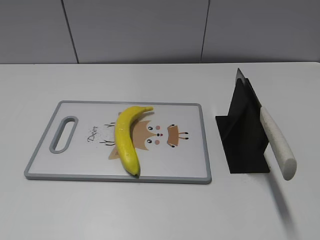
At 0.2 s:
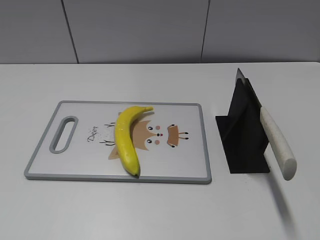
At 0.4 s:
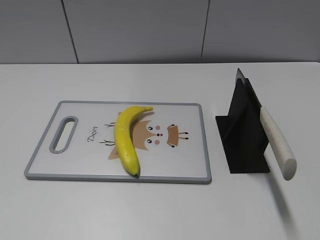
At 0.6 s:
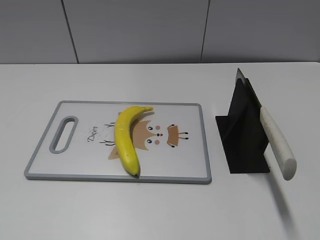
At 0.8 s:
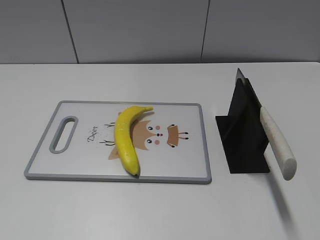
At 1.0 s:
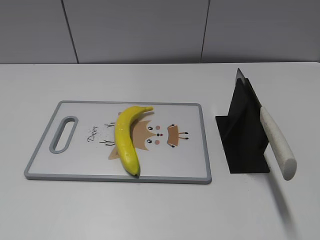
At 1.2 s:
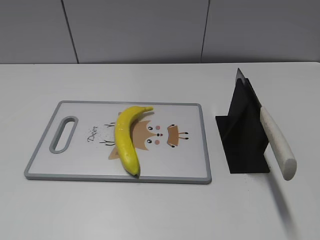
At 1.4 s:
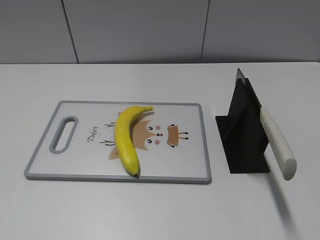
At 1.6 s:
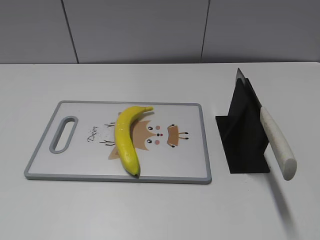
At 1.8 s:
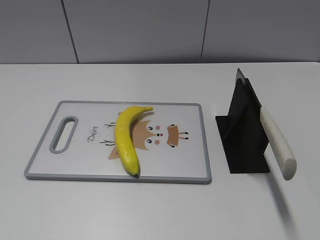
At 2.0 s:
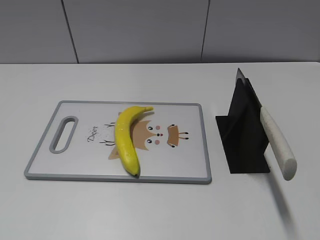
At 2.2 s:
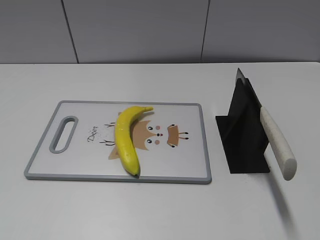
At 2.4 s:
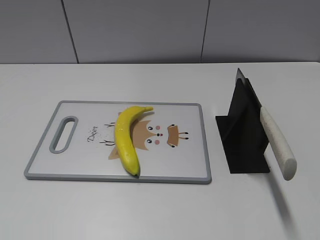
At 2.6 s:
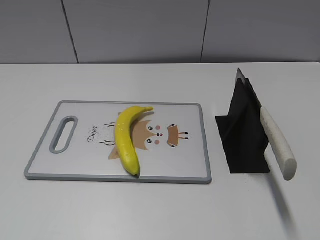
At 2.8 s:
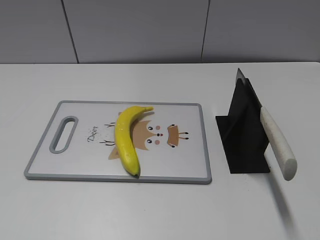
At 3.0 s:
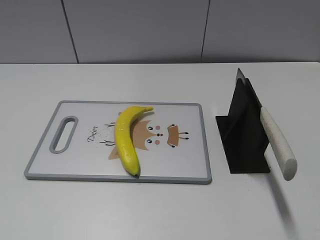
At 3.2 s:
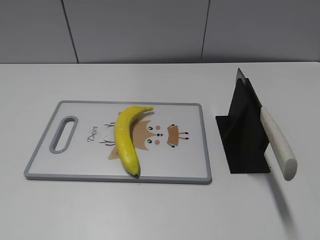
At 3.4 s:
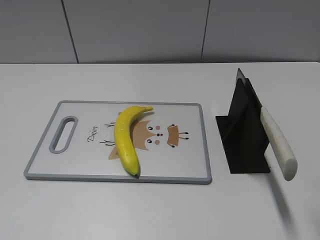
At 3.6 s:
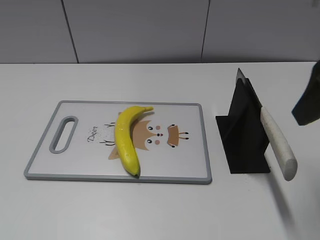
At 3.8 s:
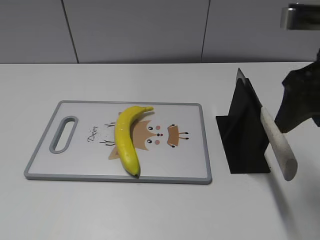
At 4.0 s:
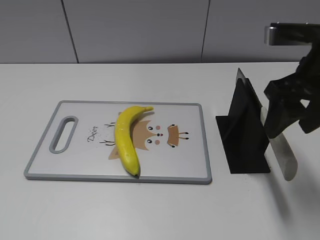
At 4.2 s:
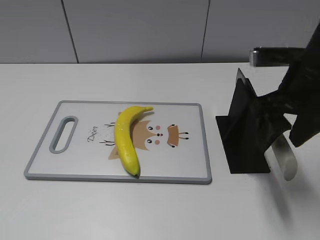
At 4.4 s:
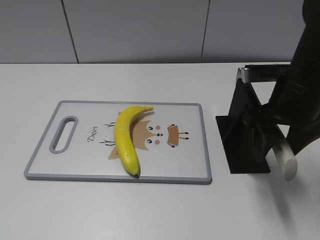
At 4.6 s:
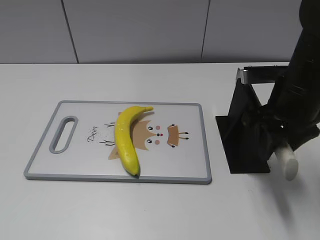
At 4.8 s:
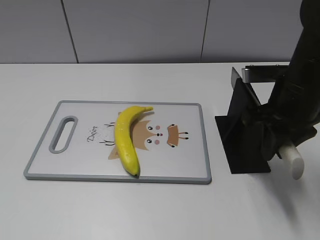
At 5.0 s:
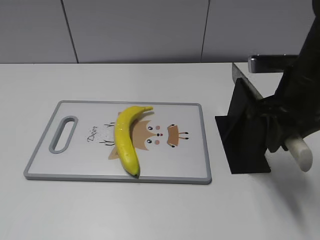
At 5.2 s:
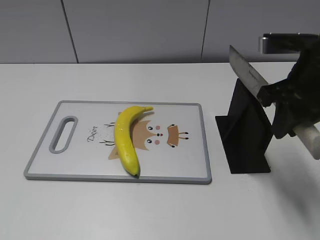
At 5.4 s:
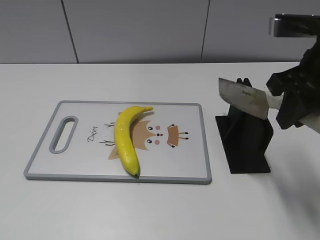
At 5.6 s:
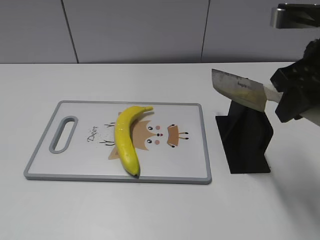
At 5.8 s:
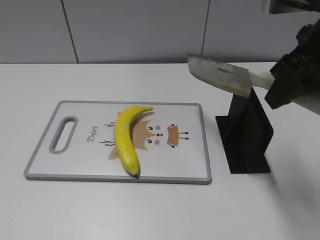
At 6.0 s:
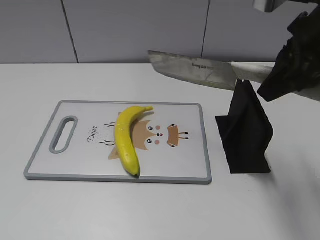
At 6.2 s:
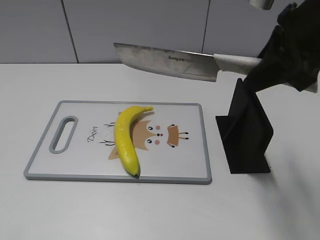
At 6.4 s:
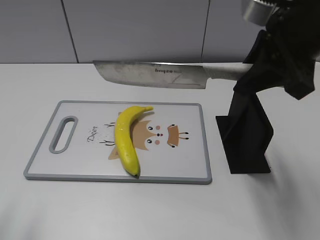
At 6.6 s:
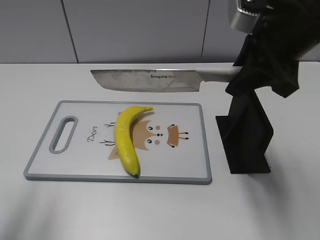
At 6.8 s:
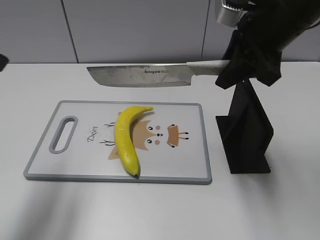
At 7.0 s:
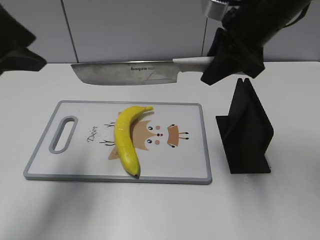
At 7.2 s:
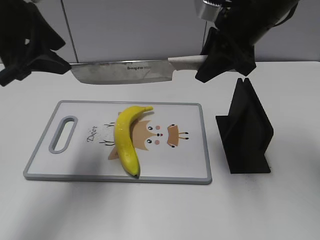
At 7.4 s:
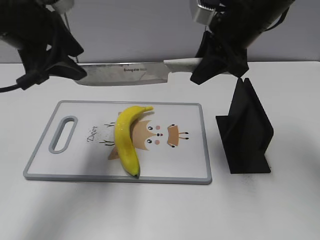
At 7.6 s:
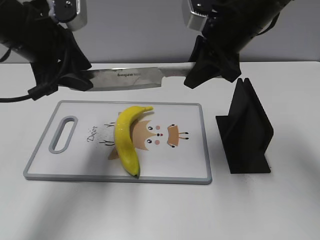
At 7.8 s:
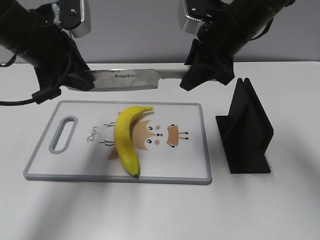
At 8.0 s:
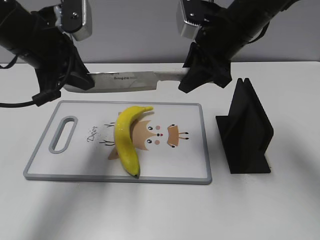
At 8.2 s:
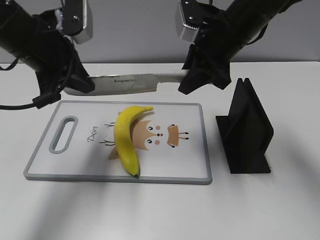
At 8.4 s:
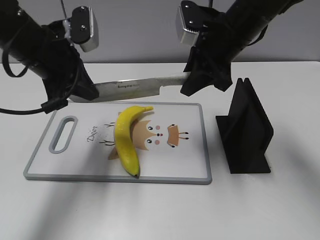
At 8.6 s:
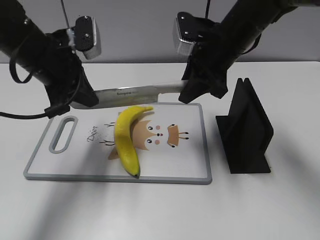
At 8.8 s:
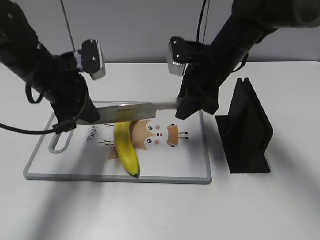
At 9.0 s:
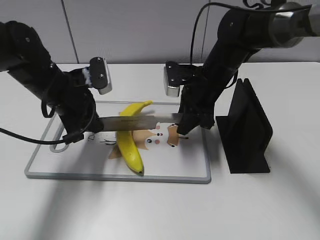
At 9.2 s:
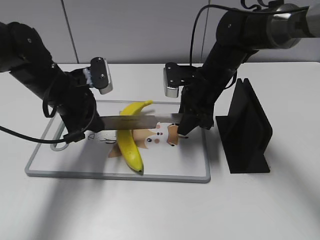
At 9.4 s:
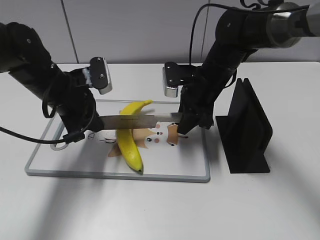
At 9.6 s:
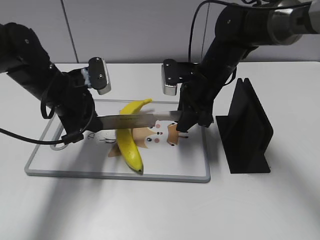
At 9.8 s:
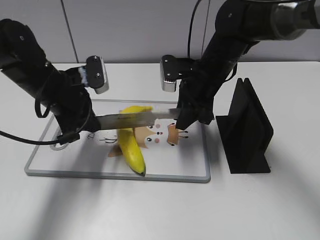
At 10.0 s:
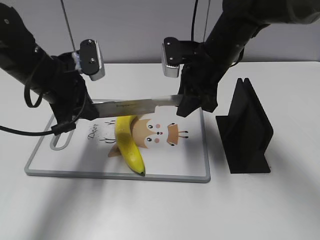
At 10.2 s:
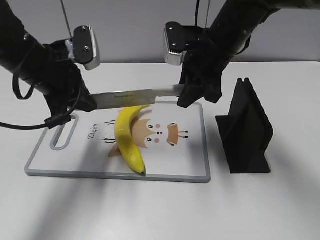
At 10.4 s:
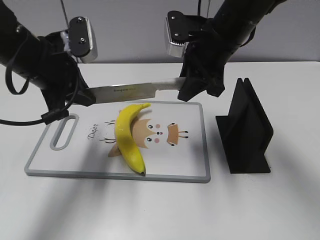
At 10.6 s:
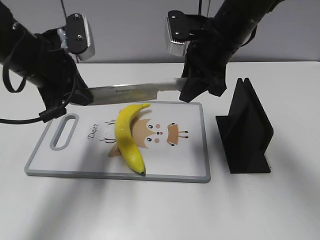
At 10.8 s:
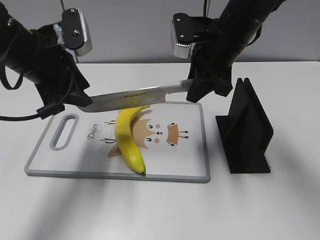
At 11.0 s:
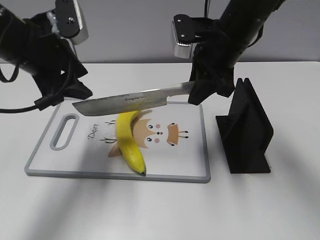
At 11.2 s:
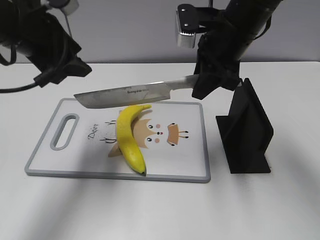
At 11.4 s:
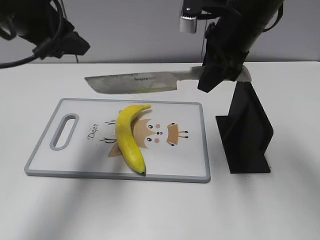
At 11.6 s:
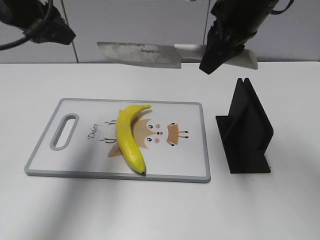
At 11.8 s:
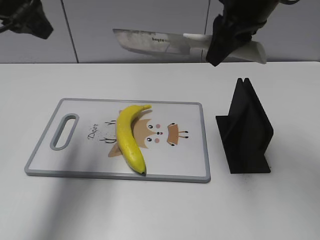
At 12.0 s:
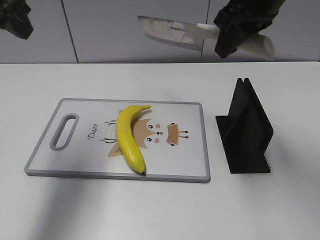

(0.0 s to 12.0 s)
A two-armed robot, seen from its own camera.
Task of the whole recording: cut plastic banana.
Step, 0.0 s - 5.8 s: Grab the knife handle with your right hand.
Step, 6.0 s - 9.8 s: Lift the knife with your right hand.
Step, 10.0 s - 11.4 s: Cut the banana with your right hand.
3.0 s - 4.4 s: The right gripper moves forward, downward and to the left, about 25 cm.
4.4 s - 6.0 s: The right gripper is displaced upward by roughly 10 cm, and closes.
6.0 s - 7.6 s: The right gripper moves forward, to the left and downward, some 15 cm. Meanwhile the left gripper goes about 35 cm forward and to the right.
7.6 s - 9.0 s: The two grippers go about 15 cm downward. The left gripper closes.
9.0 s - 10.4 s: The two grippers go about 10 cm upward.
10.4 s - 12.0 s: Both grippers move upward, approximately 10 cm. The left gripper opens up.

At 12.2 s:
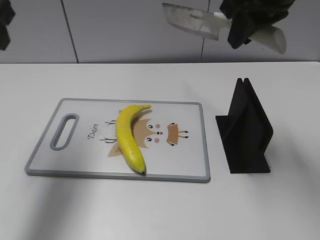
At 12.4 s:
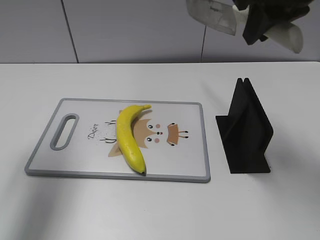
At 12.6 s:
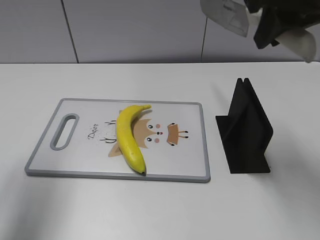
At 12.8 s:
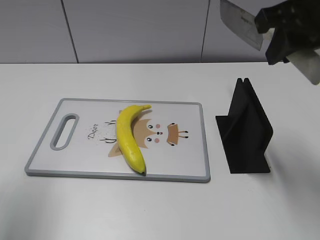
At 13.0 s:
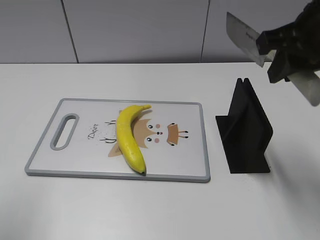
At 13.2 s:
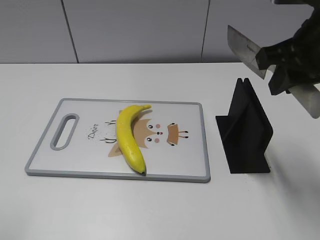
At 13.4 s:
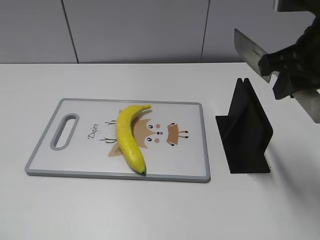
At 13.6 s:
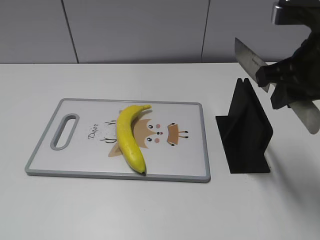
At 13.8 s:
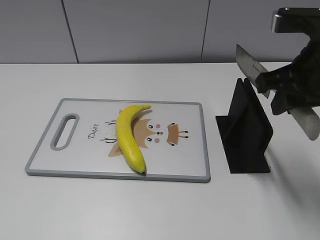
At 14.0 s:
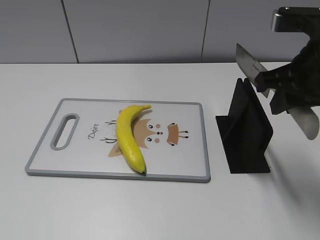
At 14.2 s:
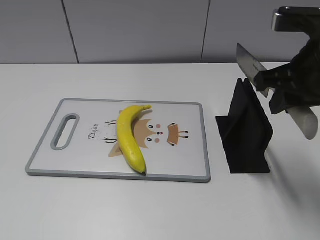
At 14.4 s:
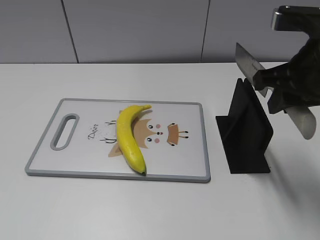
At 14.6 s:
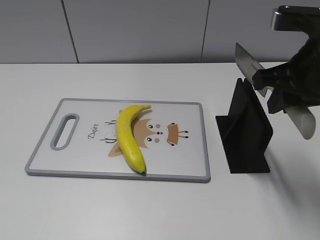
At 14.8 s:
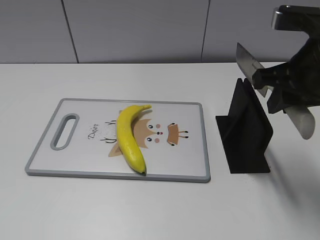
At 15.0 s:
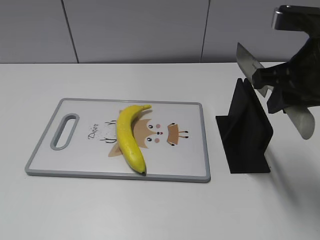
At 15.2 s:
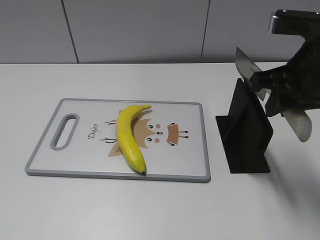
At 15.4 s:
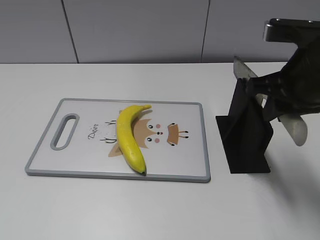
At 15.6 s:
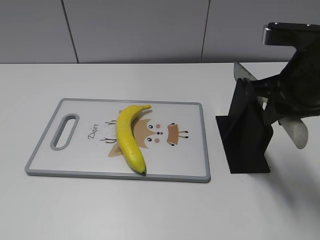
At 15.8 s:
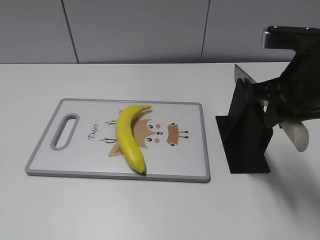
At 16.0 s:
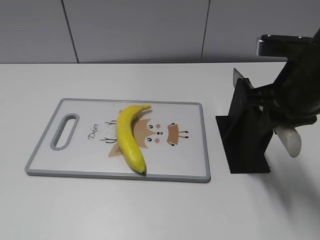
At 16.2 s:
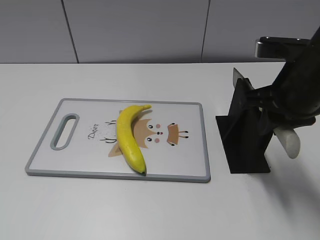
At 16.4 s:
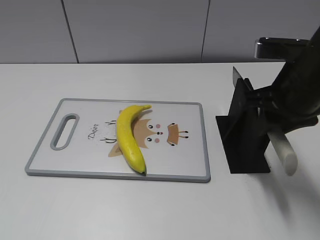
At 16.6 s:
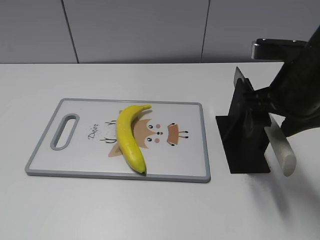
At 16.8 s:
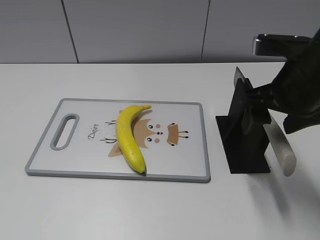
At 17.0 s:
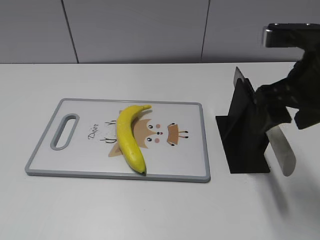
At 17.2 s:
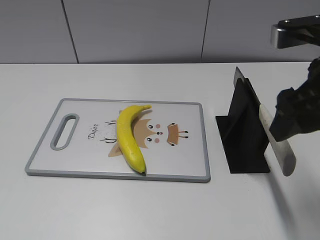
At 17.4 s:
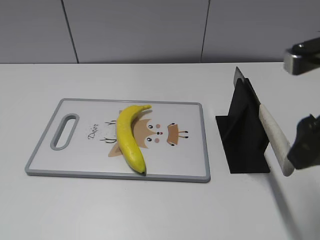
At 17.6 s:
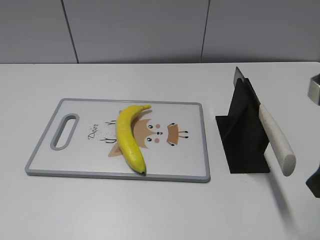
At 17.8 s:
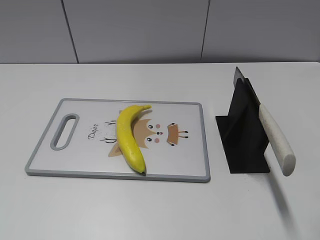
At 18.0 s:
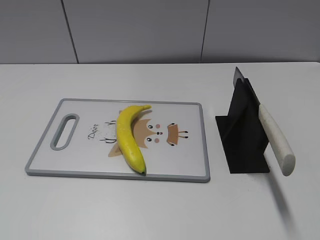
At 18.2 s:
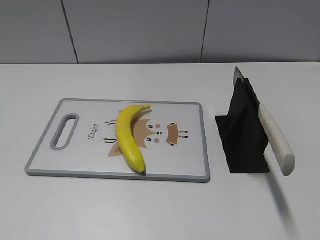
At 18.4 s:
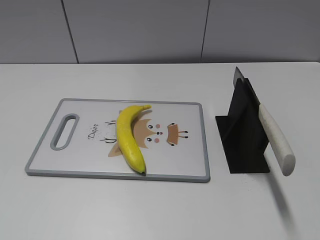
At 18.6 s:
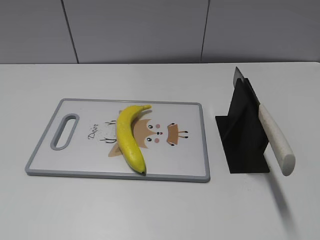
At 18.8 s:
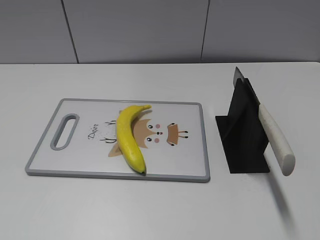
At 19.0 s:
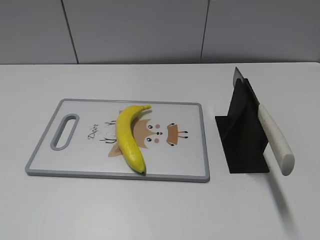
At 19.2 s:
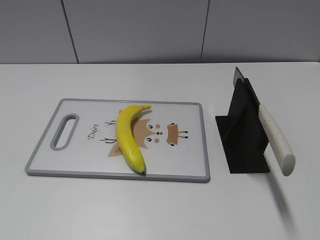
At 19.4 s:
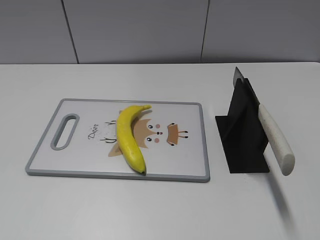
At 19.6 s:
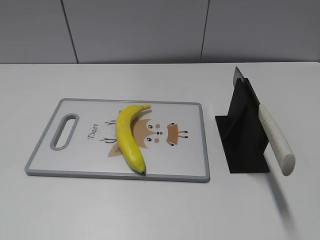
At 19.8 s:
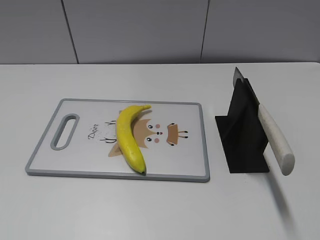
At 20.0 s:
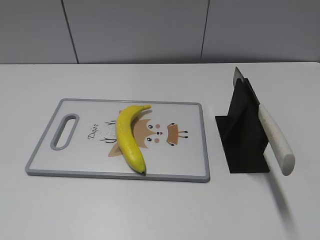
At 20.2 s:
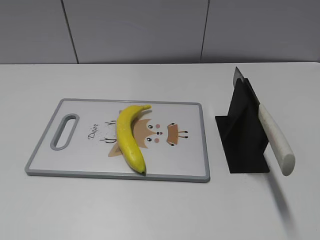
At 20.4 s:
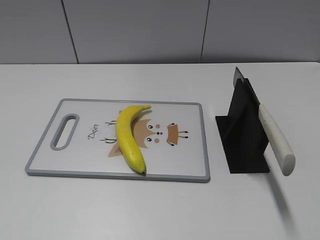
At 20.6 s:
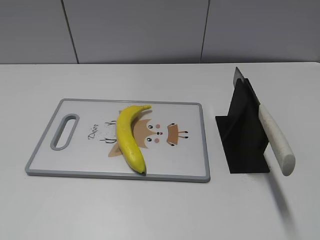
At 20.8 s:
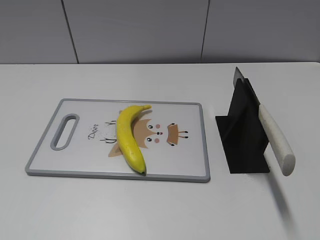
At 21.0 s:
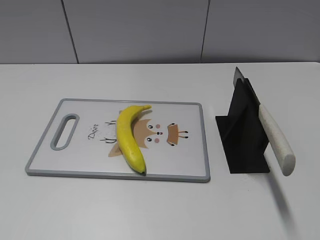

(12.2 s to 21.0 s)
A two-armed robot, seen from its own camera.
Task of the whole recording: cut plastic banana.
Step, 12.2 s - 13.2 s: Lift the knife with your right hand.
Step, 13.6 s - 20.6 s: Place the knife on the storage rack with your right hand.
12.2 s - 13.6 s: The right gripper is displaced backward and downward by roughly 10 cm. Meanwhile the left gripper travels backward by some 25 cm.
15.2 s - 16.6 s: The right gripper opens its fingers.
16.6 s - 18.0 s: The right gripper moves backward and to the right, about 20 cm.
